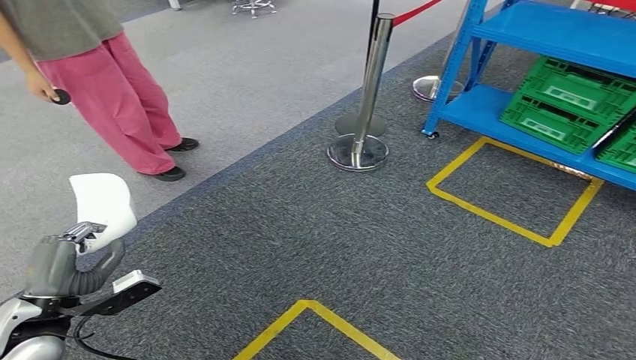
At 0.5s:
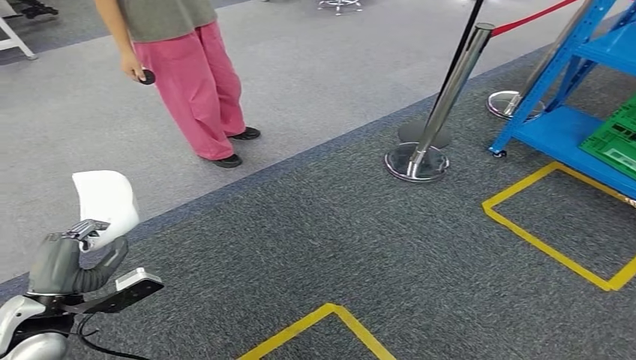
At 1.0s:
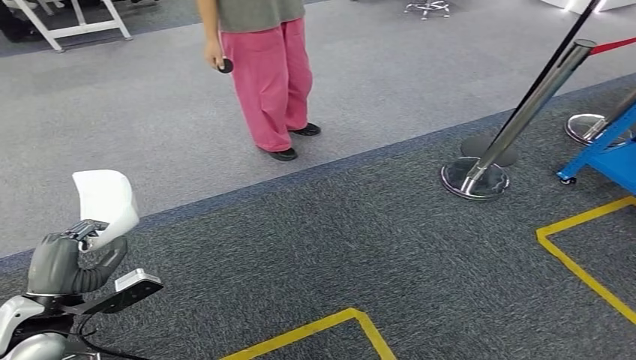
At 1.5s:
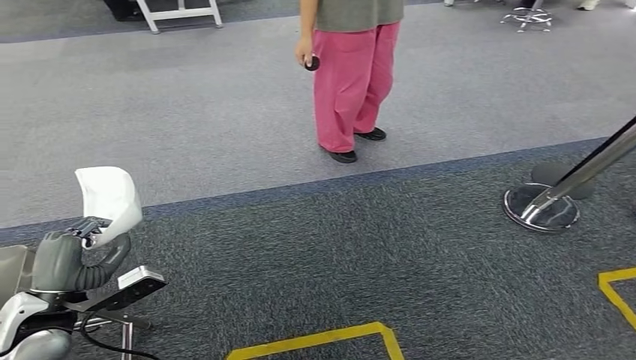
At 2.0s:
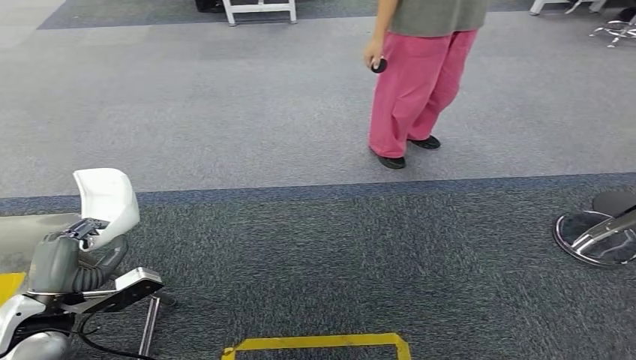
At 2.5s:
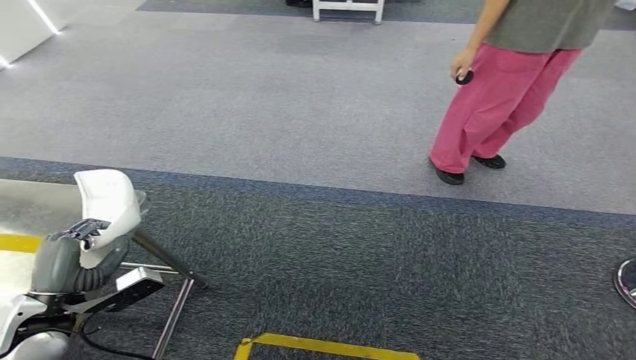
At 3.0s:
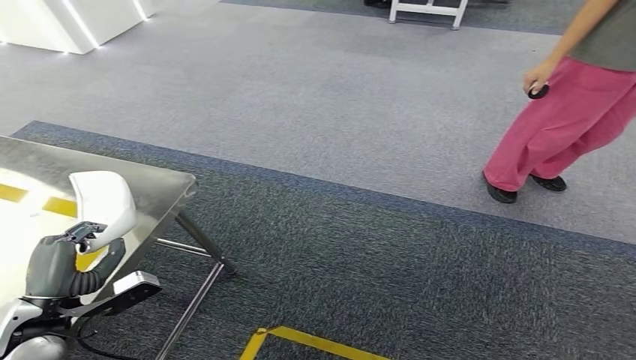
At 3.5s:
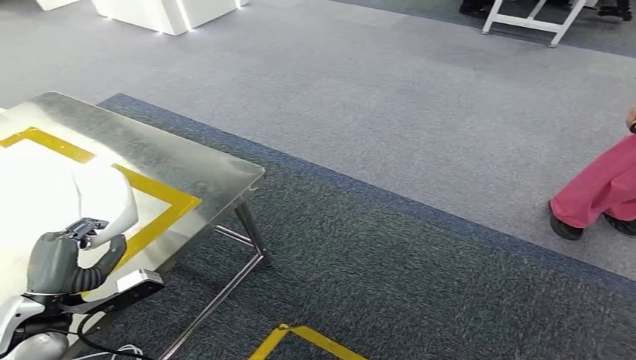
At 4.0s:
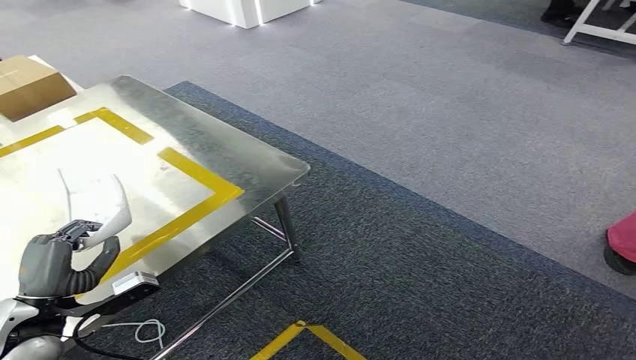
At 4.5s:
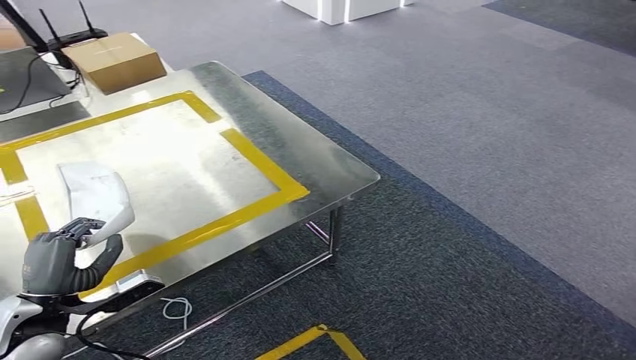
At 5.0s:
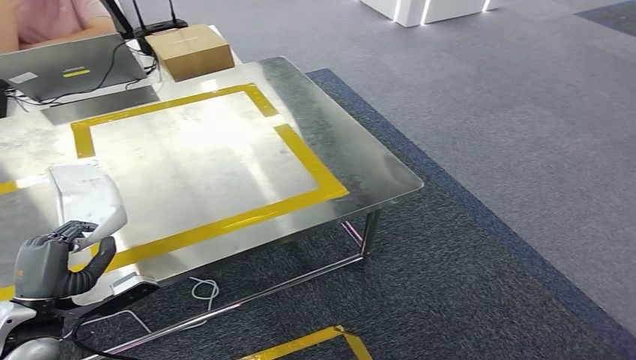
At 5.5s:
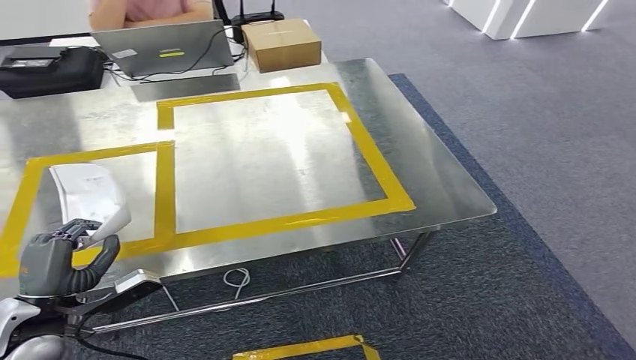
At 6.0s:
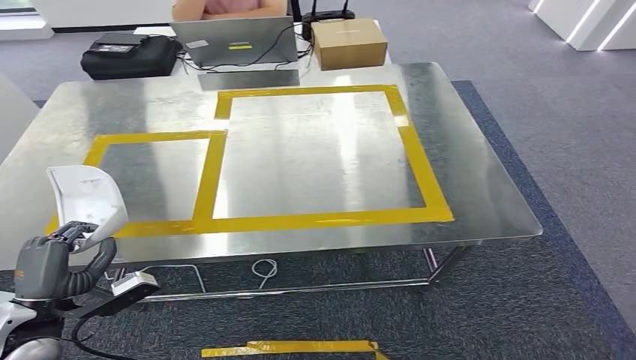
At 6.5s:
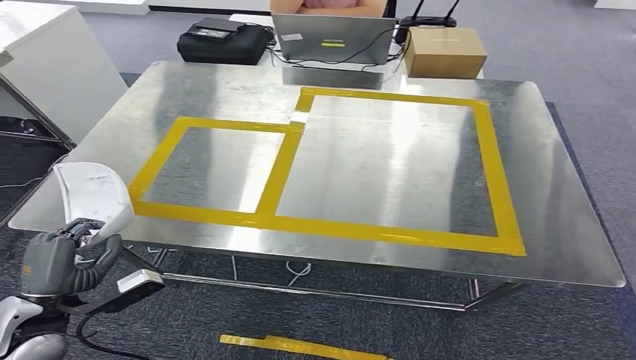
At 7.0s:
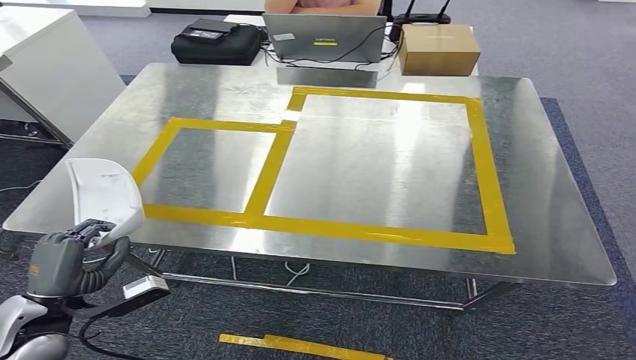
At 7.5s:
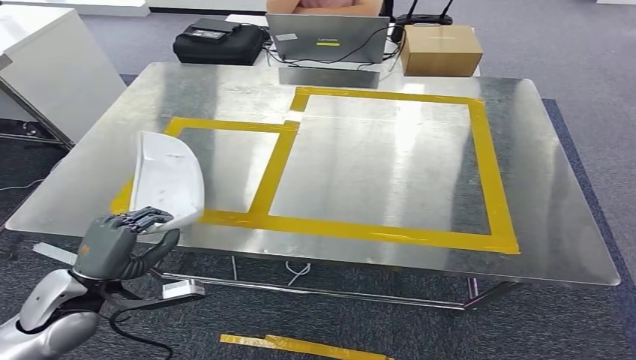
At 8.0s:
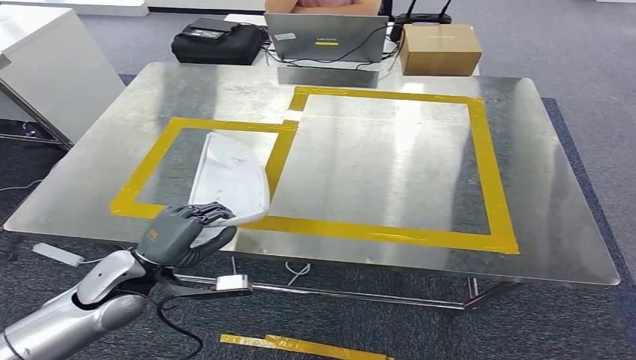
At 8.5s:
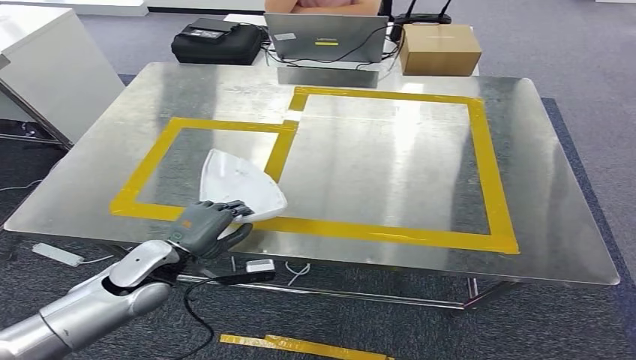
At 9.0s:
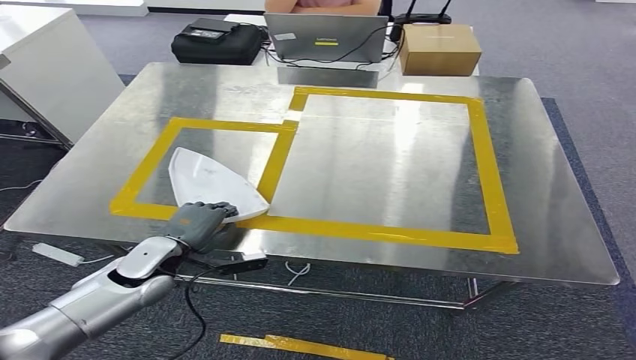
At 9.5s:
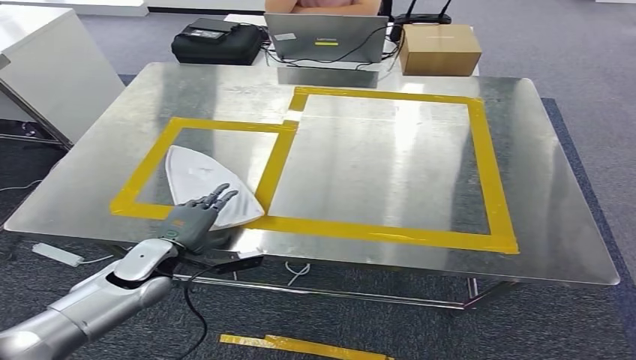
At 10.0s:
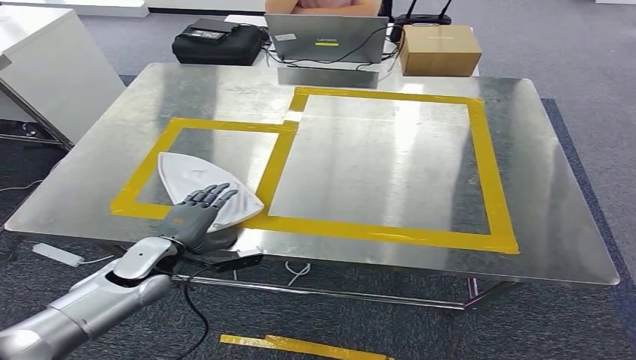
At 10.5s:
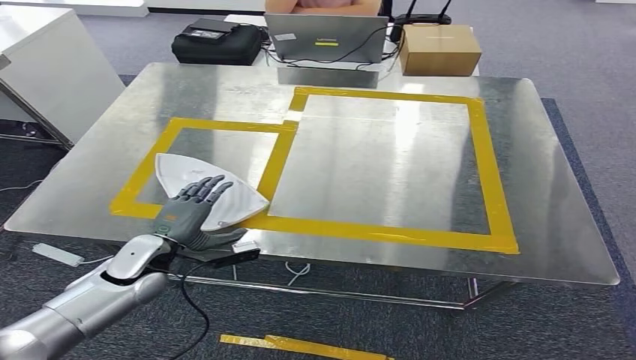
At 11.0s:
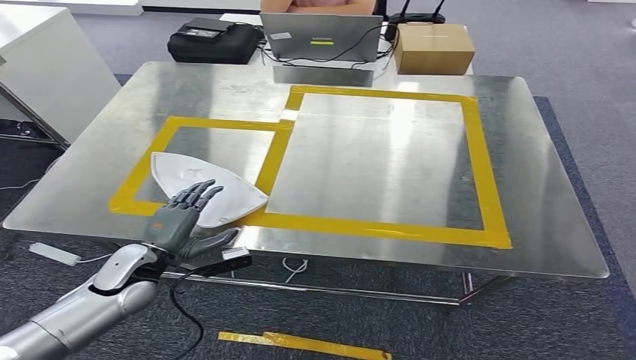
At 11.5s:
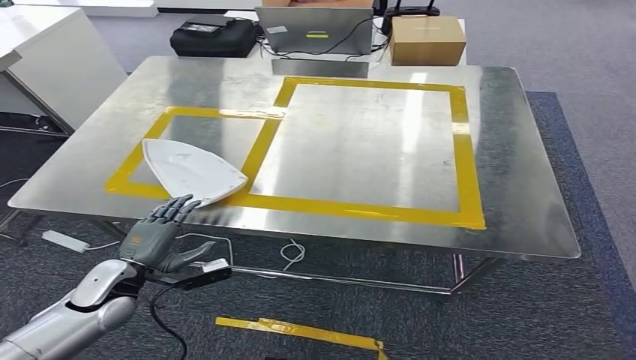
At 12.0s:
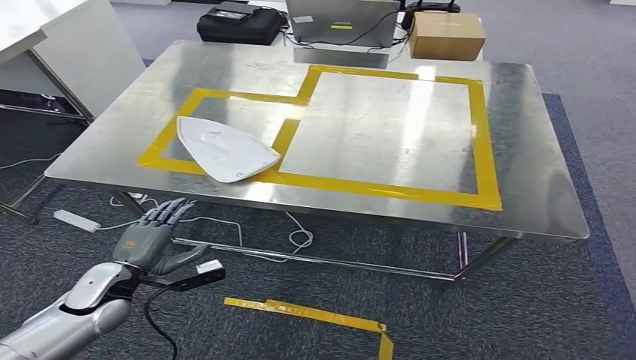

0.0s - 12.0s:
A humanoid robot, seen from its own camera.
Step, 0.0s - 5.5s: Move the small parts to the workbench.
8.0s - 10.0s: The left hand goes approximately 5 cm downward and forward; the right hand moves some 5 cm.

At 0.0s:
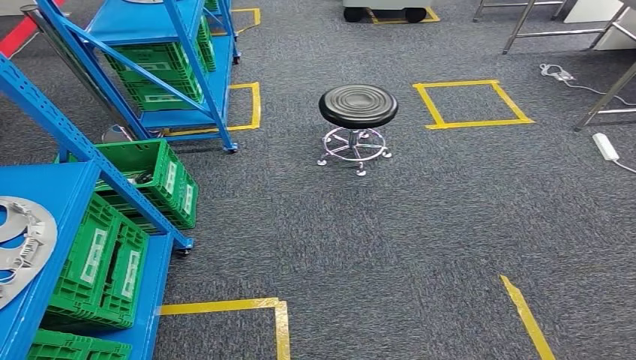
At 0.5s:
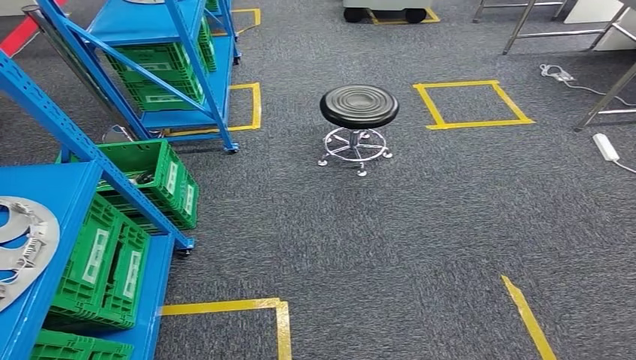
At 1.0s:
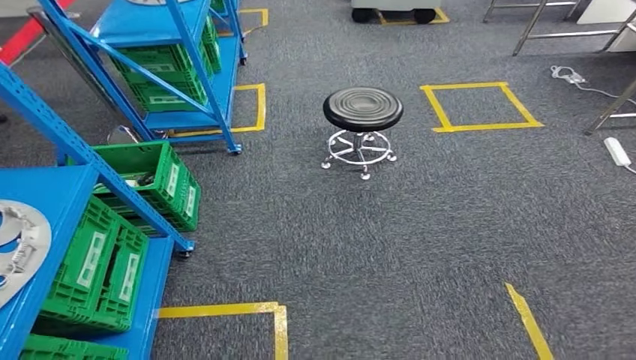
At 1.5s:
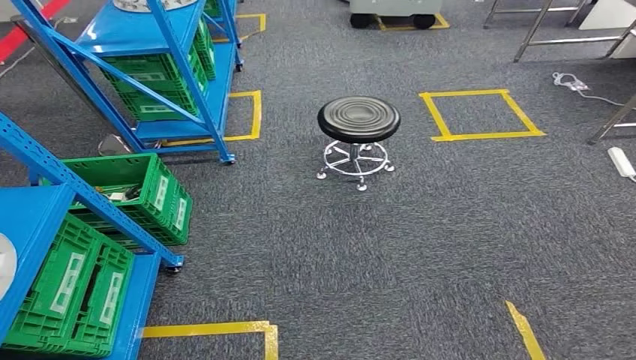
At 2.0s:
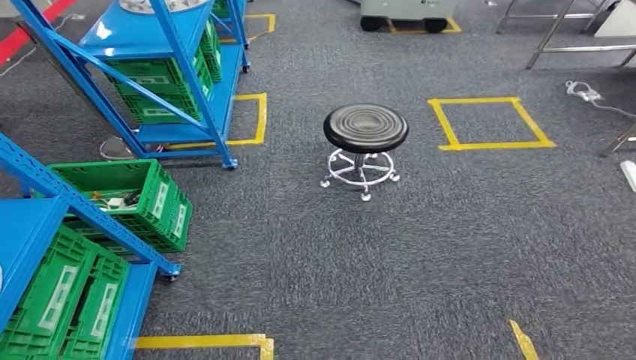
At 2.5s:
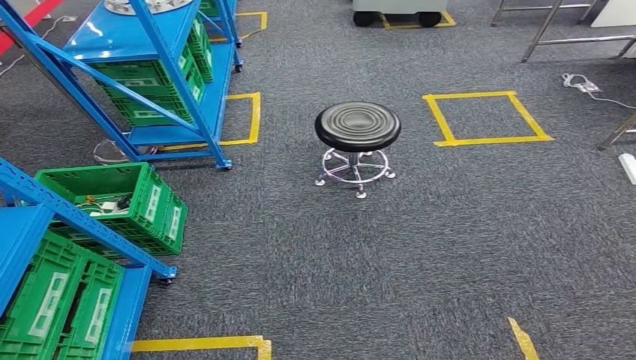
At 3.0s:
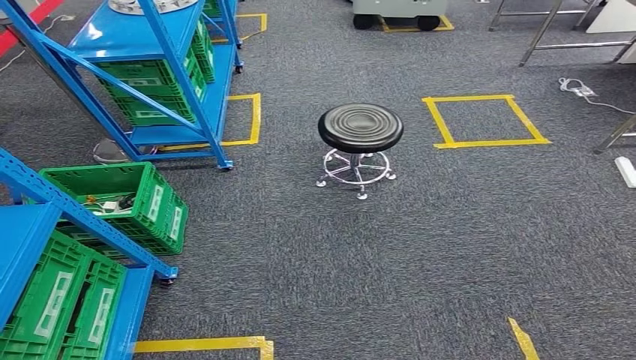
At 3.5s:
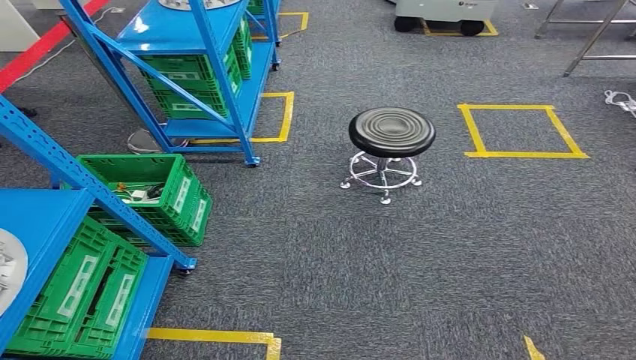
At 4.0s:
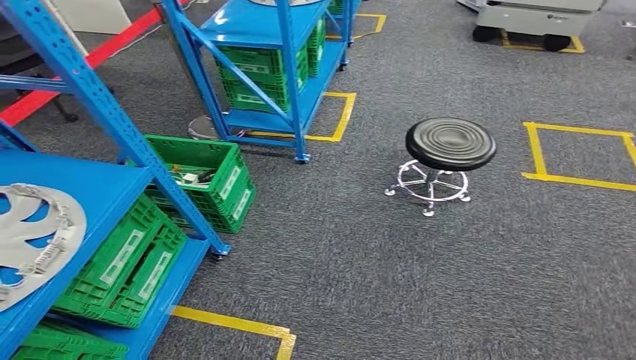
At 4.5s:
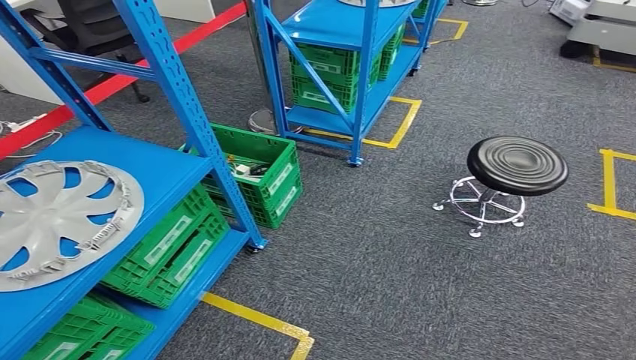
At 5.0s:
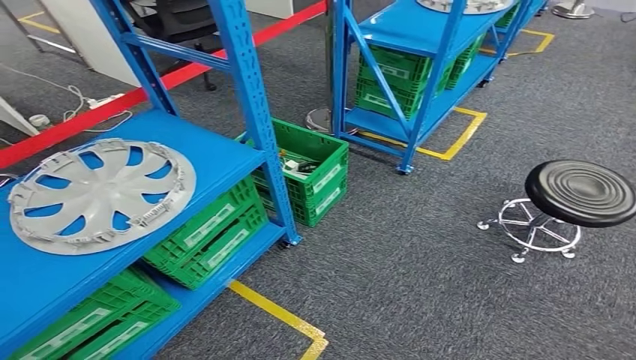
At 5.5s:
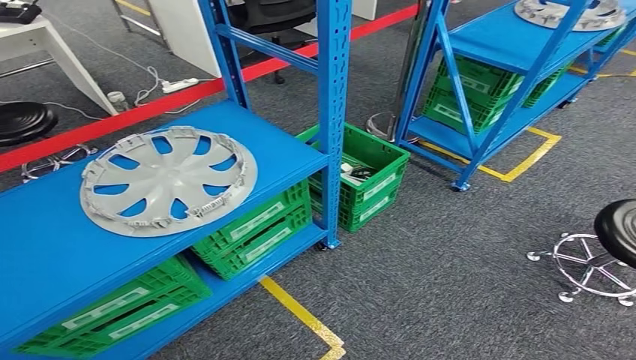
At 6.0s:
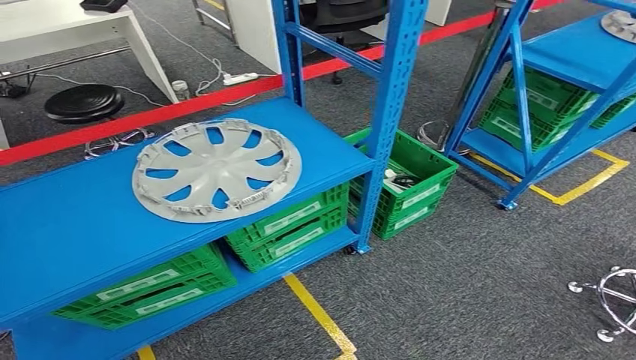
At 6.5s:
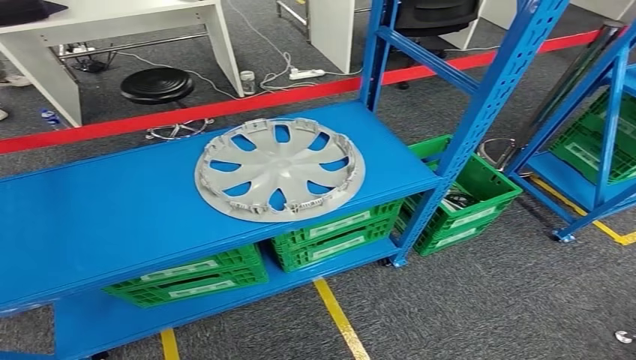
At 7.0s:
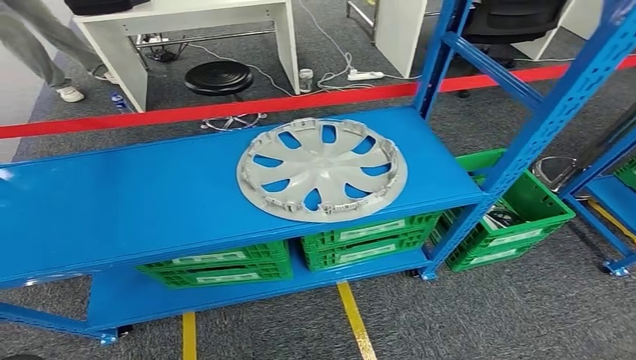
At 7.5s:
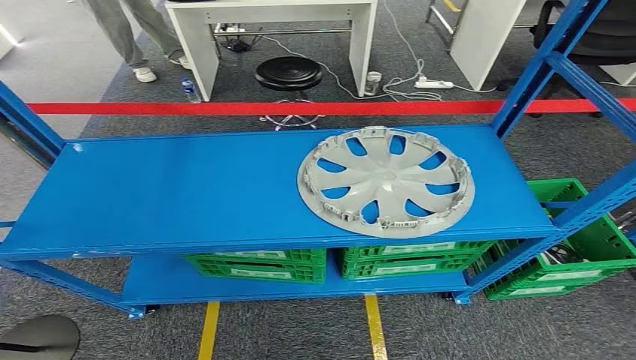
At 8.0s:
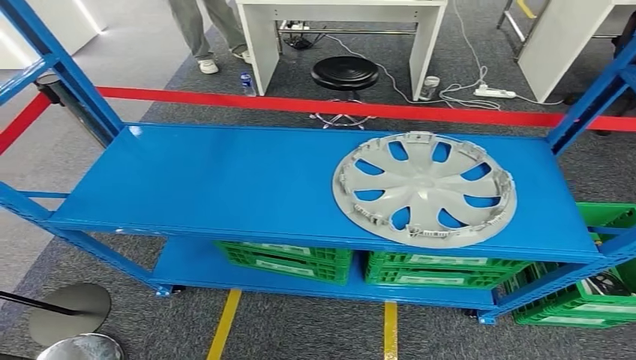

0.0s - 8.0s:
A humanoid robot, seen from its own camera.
Step, 0.0s - 8.0s: Move to the initial position of the workbench.
